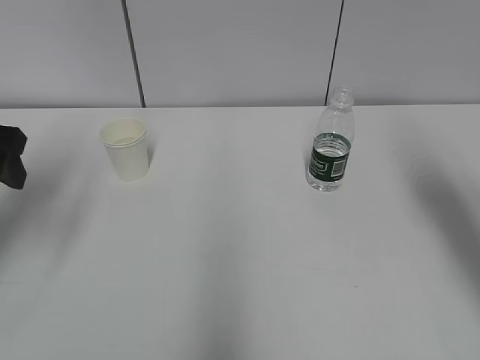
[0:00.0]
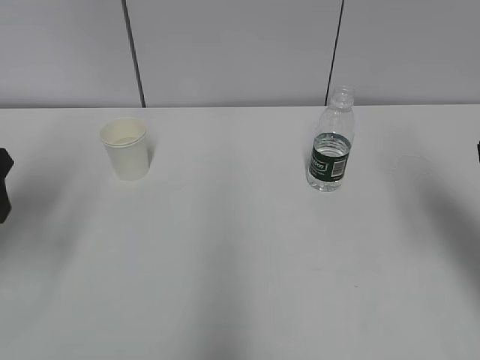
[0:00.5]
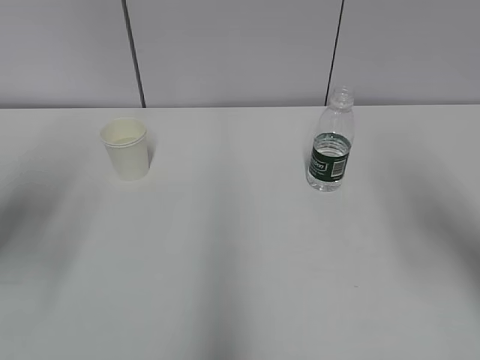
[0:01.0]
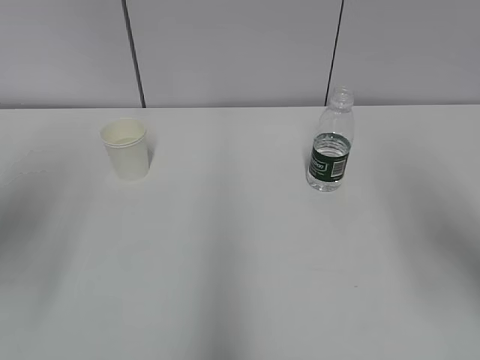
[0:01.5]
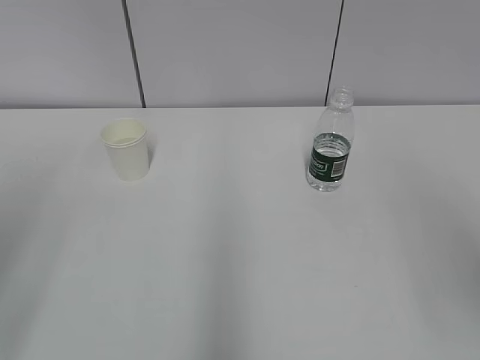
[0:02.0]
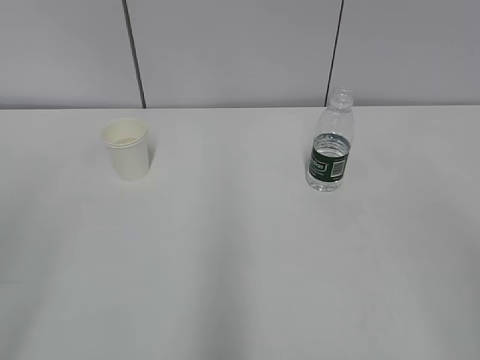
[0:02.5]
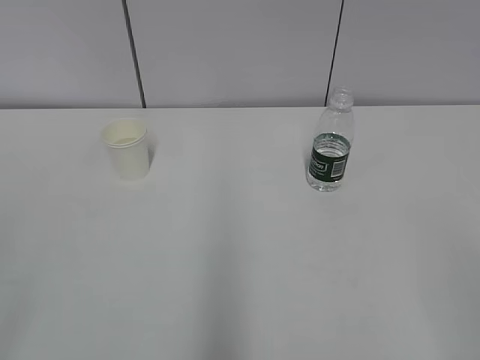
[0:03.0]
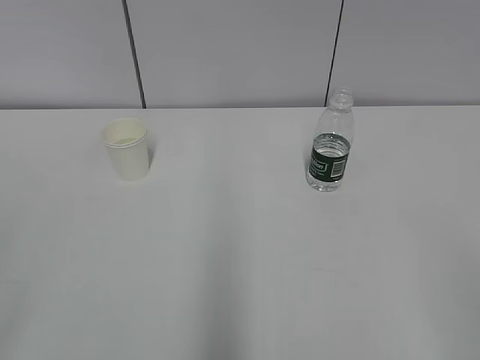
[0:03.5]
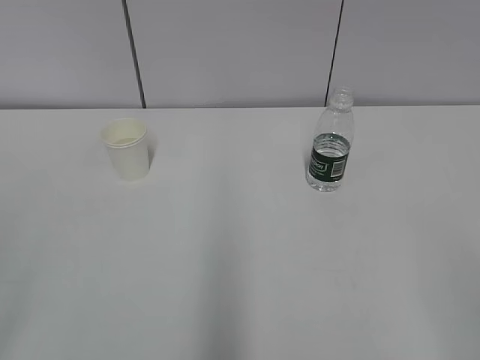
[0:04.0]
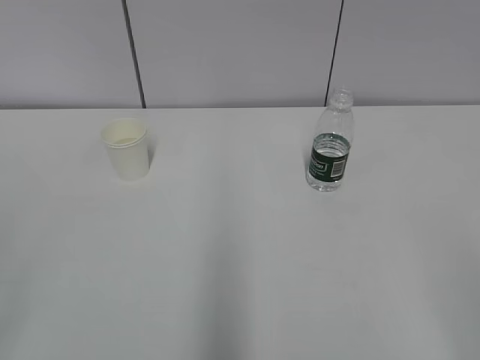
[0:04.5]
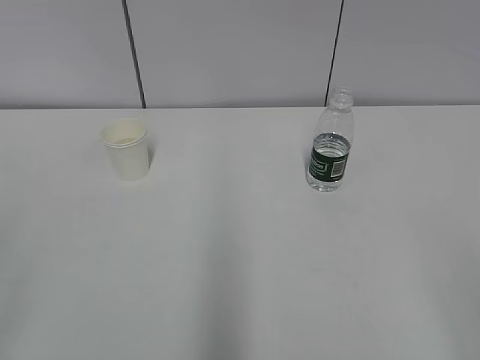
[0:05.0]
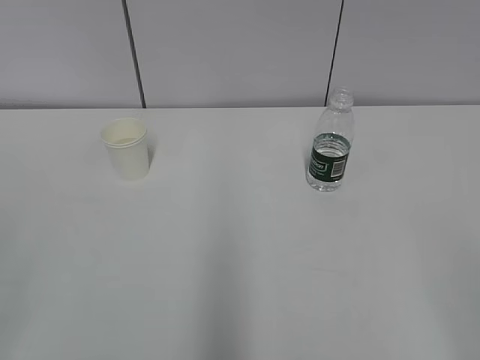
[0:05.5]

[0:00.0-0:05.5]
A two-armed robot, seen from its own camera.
0.0 to 2.0 s: The left gripper goes roughly 20 cm backward. The right gripper shifts about 20 cm backward and upward.

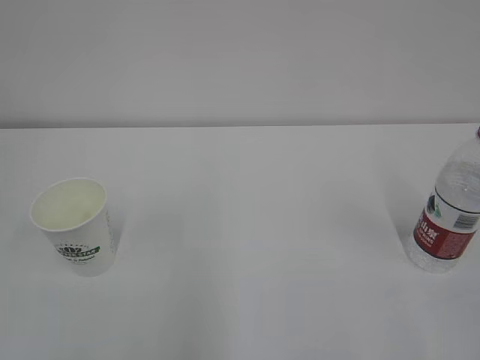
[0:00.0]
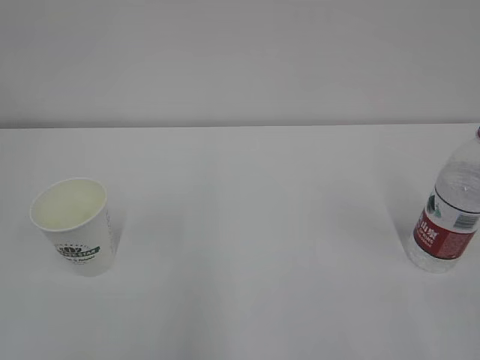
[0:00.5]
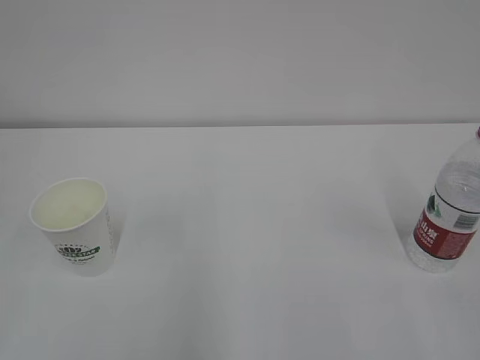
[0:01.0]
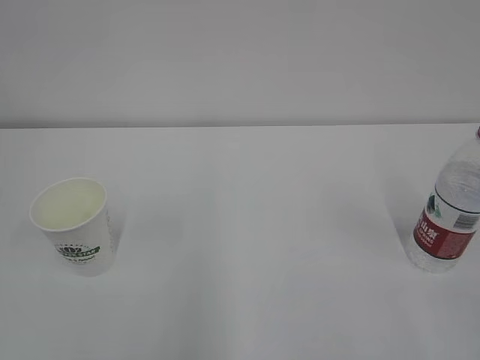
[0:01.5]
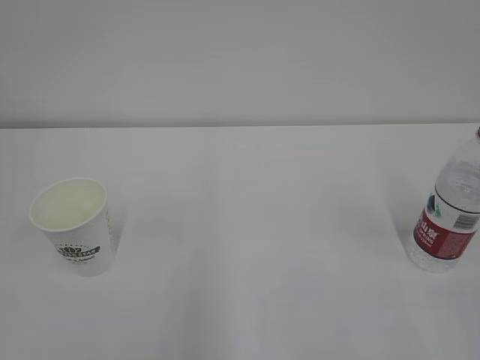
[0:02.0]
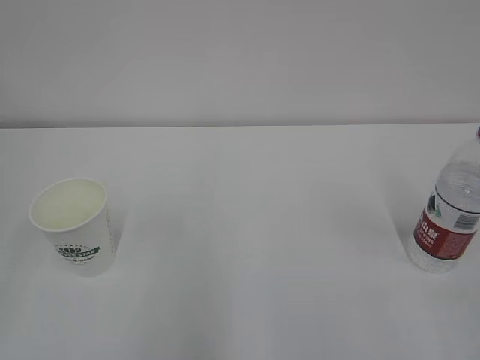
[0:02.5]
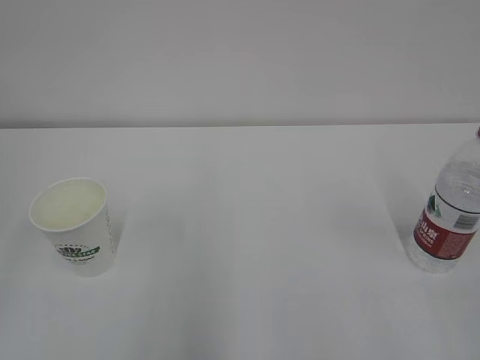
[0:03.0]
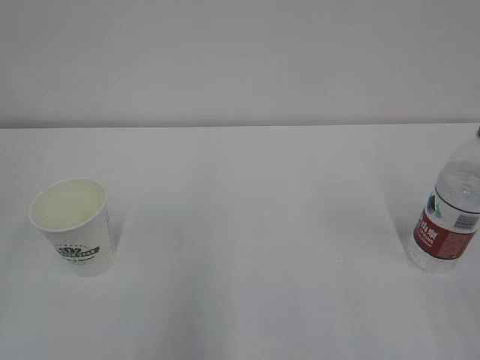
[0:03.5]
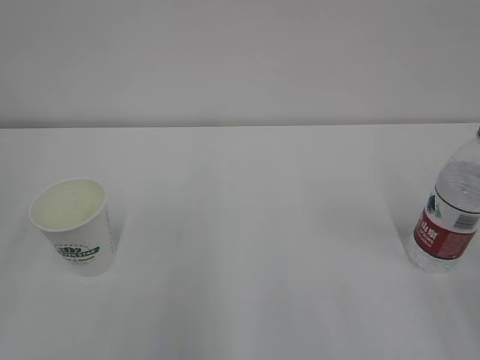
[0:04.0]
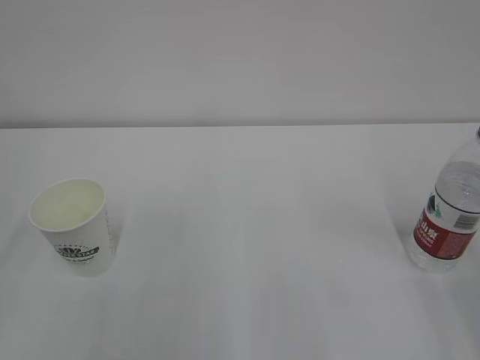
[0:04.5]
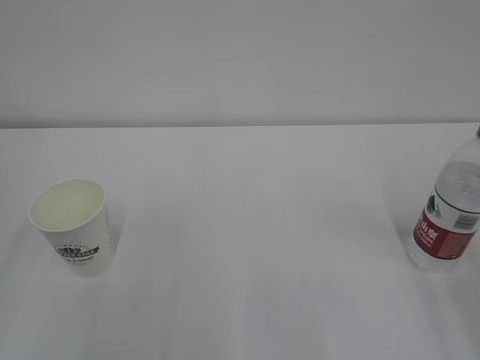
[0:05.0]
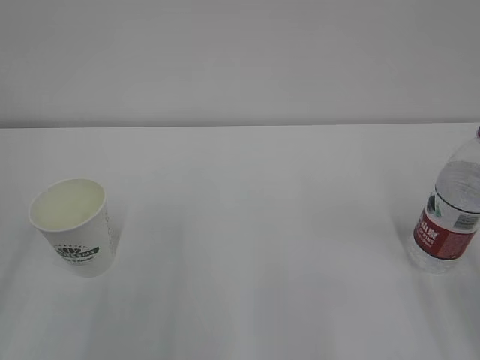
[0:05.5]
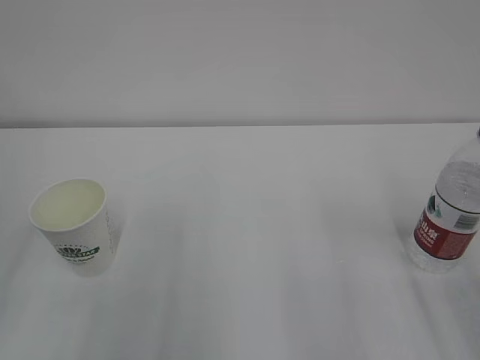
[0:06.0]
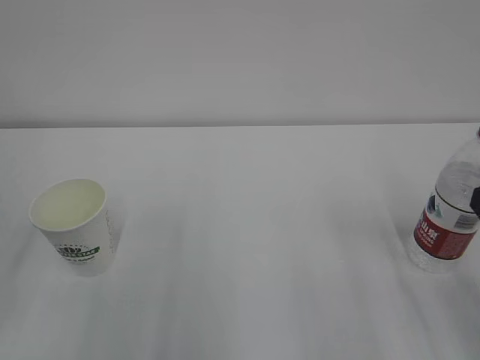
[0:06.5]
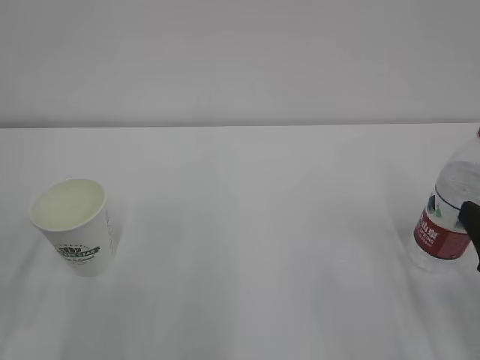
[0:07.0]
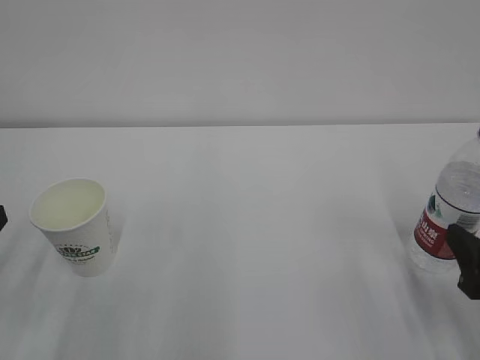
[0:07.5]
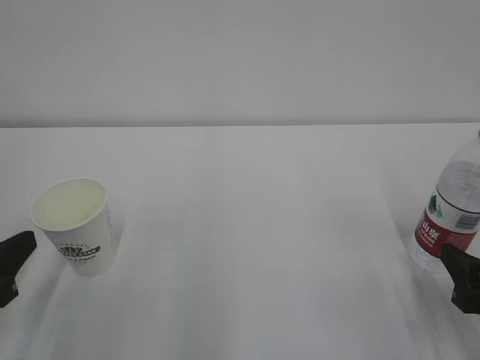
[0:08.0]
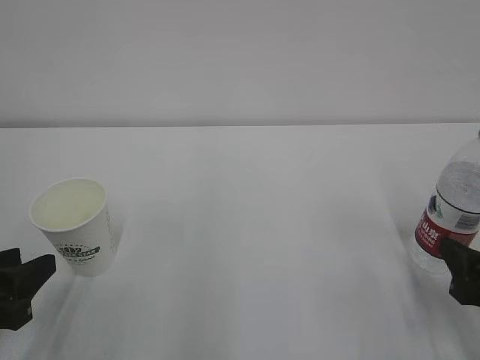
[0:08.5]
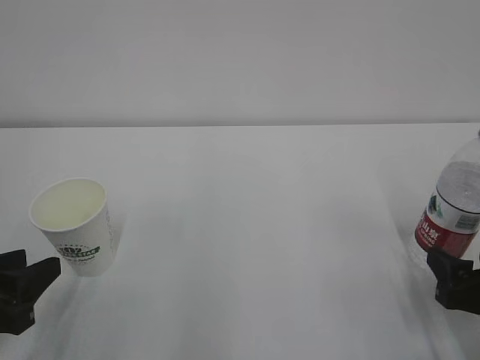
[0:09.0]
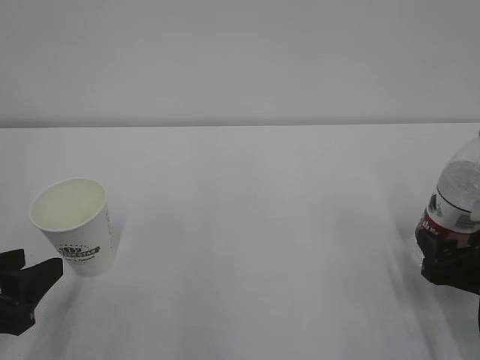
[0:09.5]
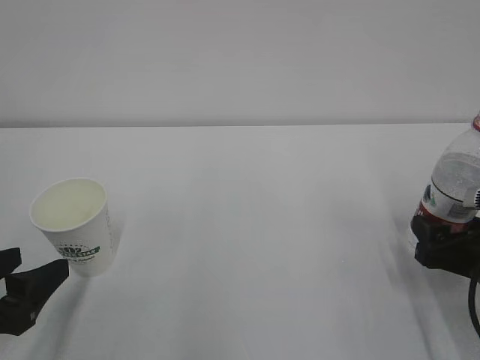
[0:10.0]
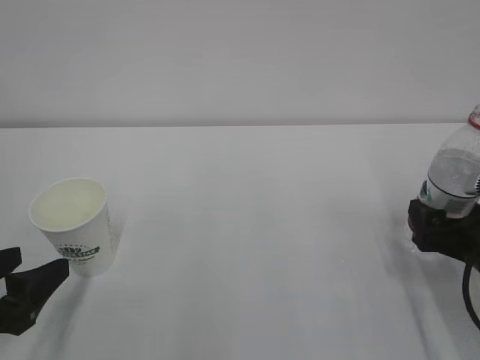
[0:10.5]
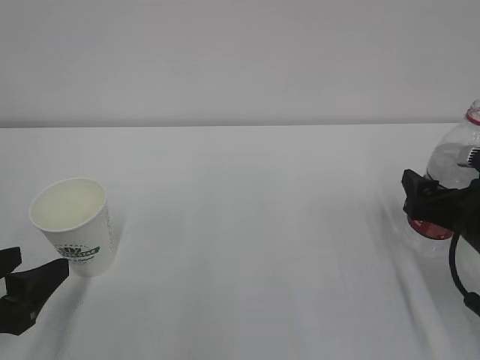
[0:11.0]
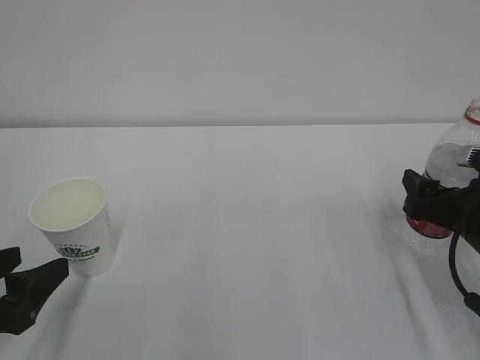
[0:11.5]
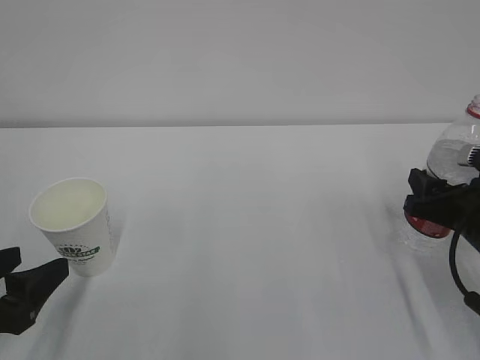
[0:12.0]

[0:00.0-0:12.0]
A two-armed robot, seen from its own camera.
6.0 to 8.0 s: Both grippers move downward, about 10 cm.
8.0 to 10.0 s: The left gripper opens. The right gripper heads forward, covering some 5 cm.
10.0 to 12.0 s: The right gripper closes.

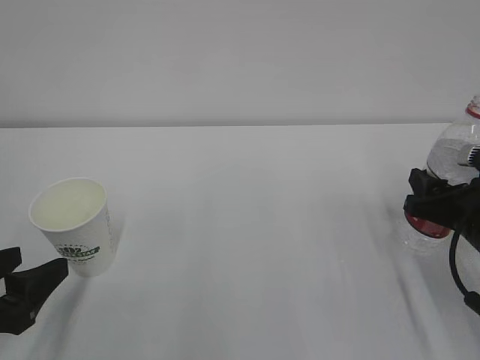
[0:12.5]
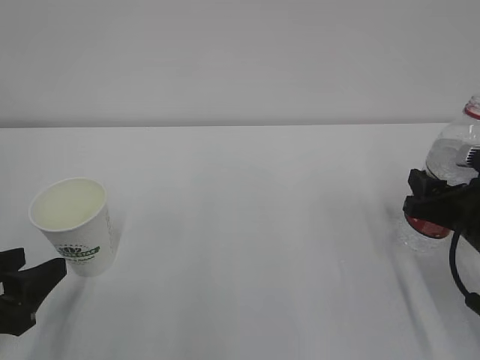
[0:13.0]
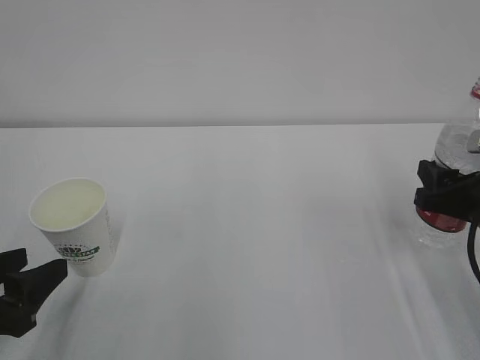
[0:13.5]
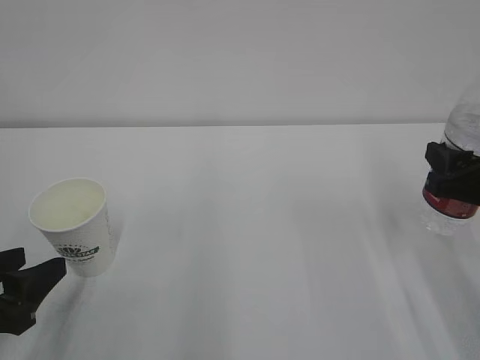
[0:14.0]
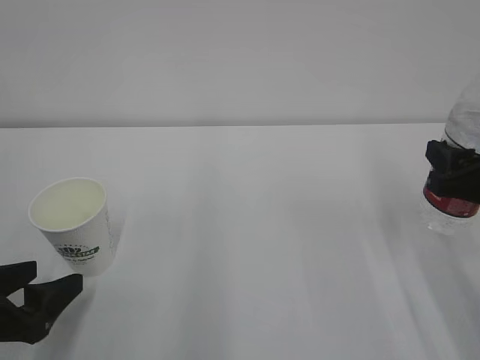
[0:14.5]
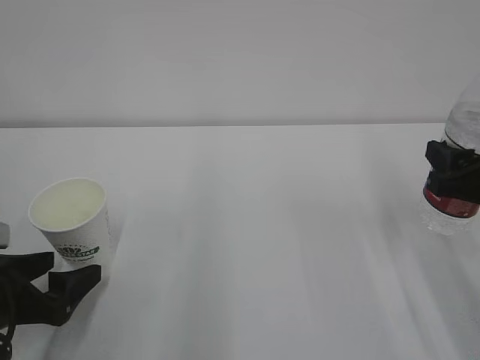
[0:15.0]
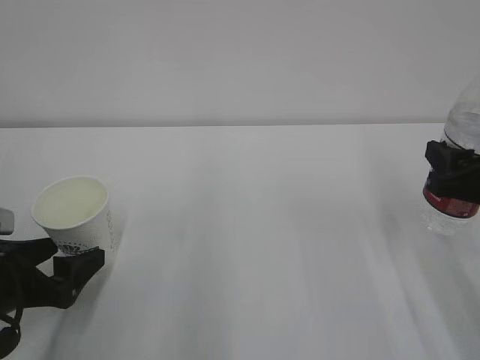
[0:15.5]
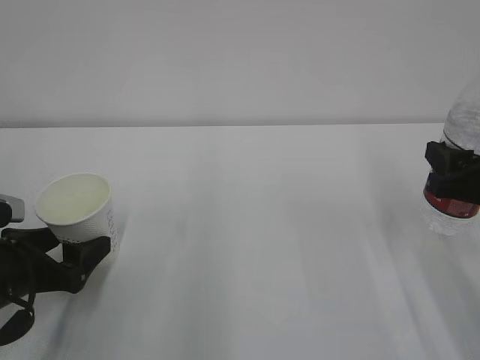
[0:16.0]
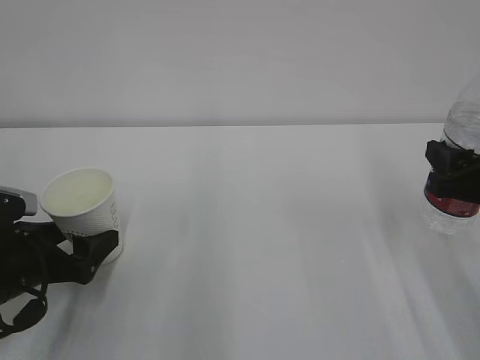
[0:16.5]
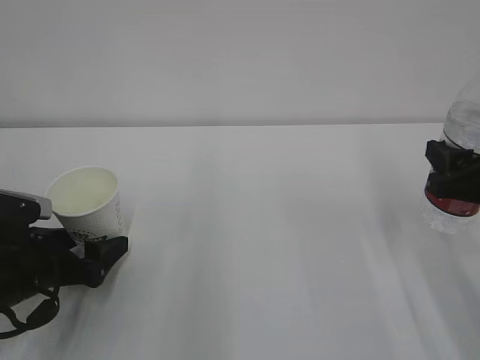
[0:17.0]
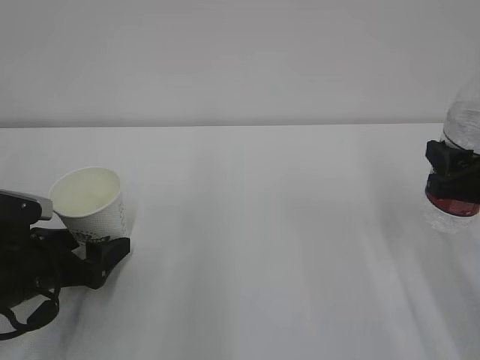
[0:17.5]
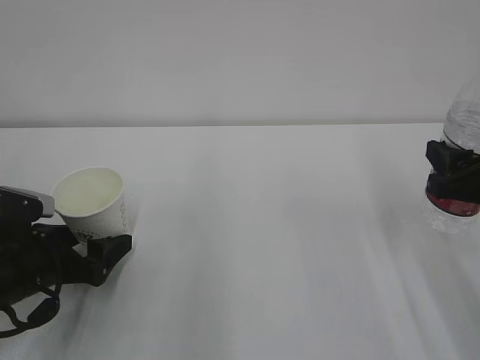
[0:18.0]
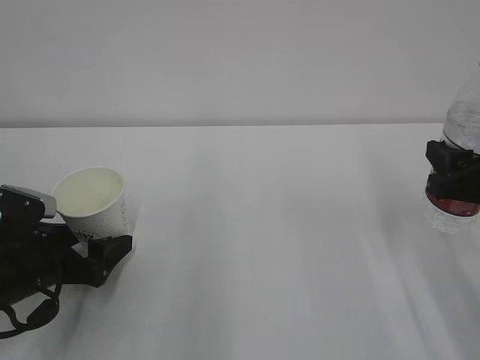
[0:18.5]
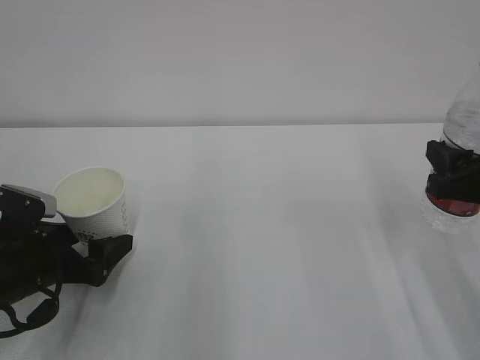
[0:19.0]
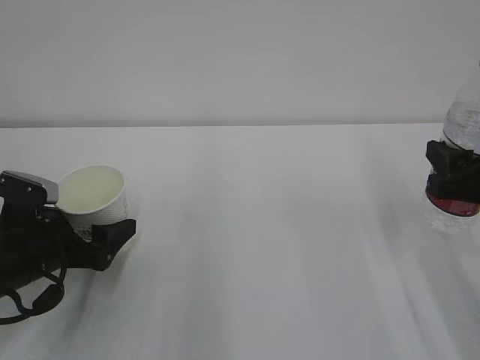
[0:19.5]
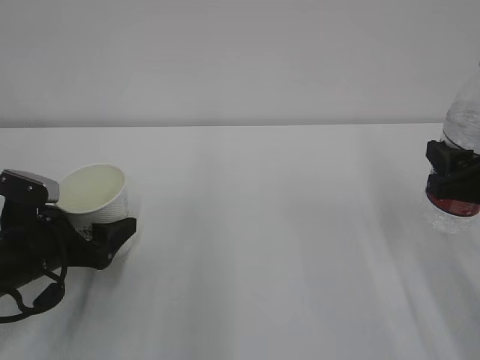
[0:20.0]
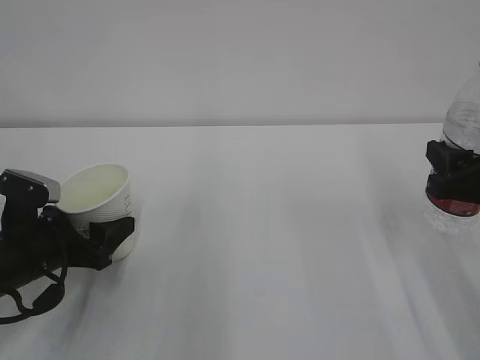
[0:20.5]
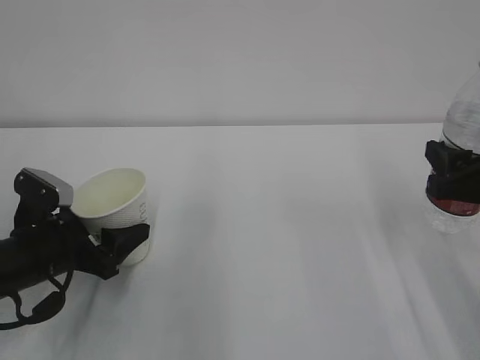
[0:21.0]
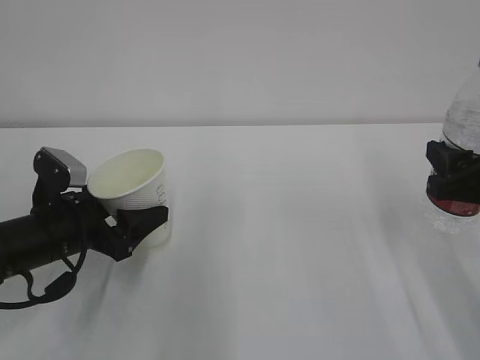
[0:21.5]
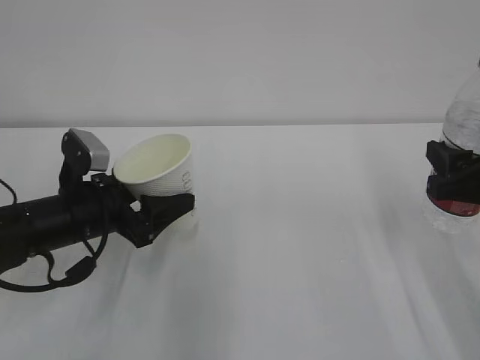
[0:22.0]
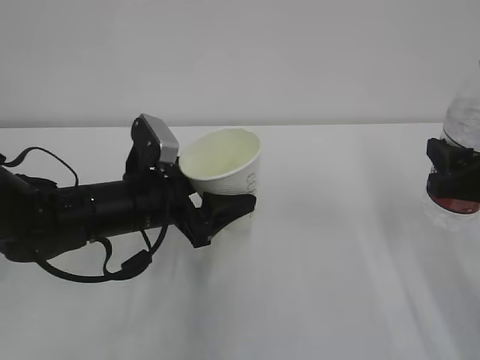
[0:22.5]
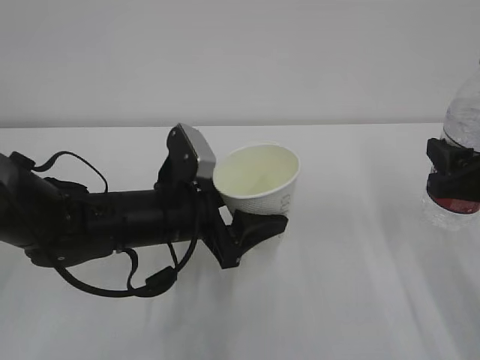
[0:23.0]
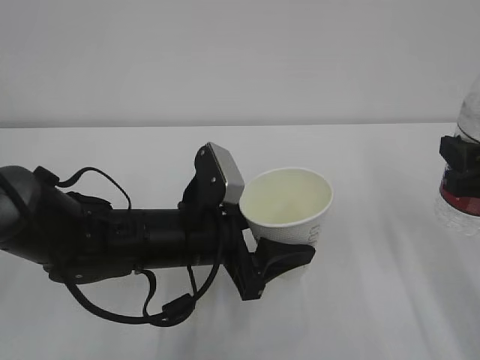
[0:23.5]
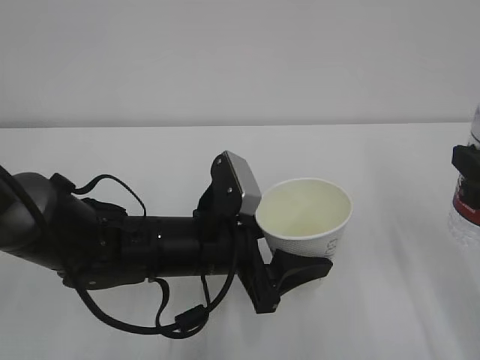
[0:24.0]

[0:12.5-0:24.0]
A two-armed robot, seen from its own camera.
12.5 to 14.5 s: The right gripper goes some 5 cm upward.
14.5 to 16.5 s: The left gripper is displaced forward by roughly 5 cm.
16.5 to 20.0 s: The grippers move only a little.
20.0 to 22.0 s: The left gripper heads to the right, covering approximately 5 cm, and closes up.
22.0 to 24.0 s: The left gripper shifts some 15 cm to the right, while the right gripper shifts by some 5 cm.
